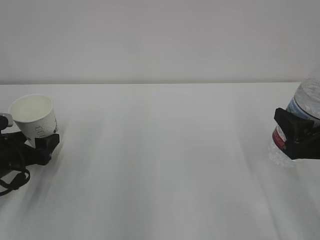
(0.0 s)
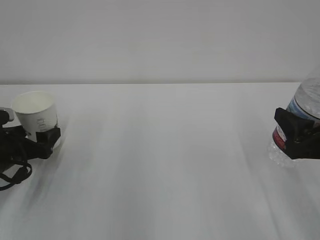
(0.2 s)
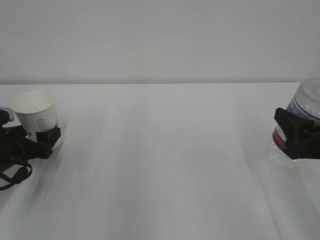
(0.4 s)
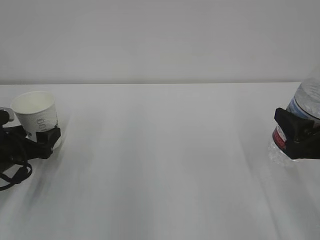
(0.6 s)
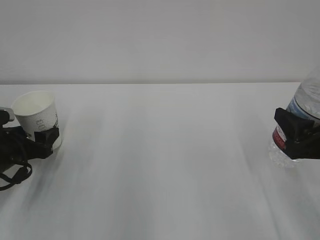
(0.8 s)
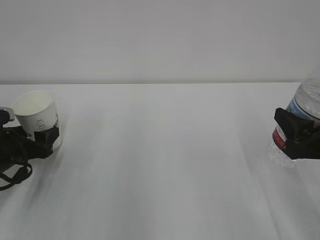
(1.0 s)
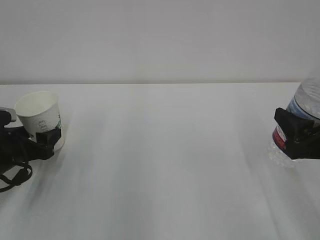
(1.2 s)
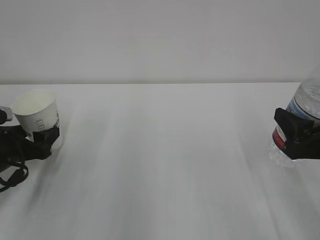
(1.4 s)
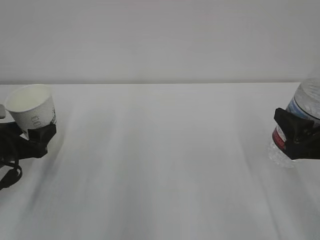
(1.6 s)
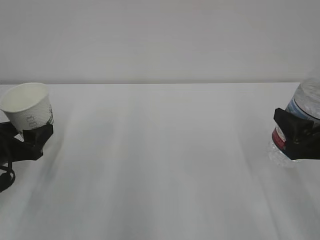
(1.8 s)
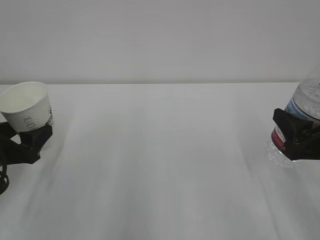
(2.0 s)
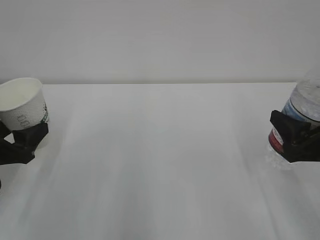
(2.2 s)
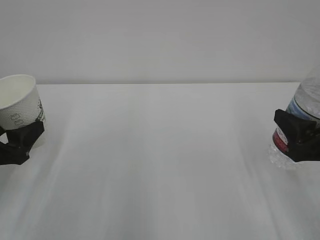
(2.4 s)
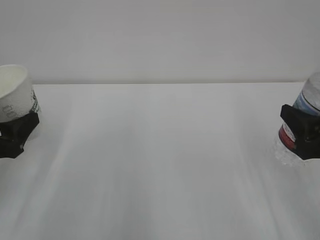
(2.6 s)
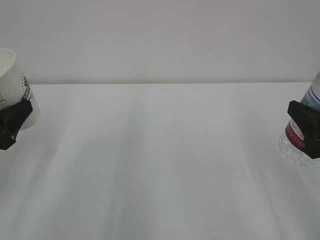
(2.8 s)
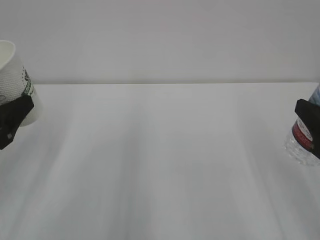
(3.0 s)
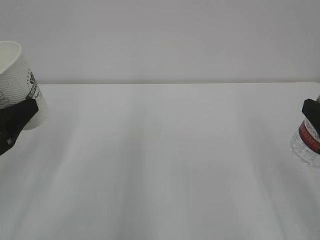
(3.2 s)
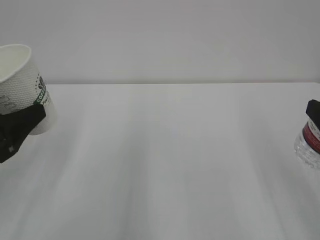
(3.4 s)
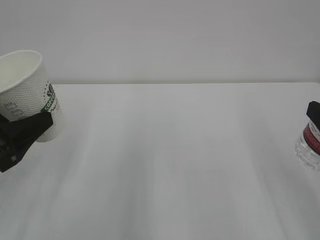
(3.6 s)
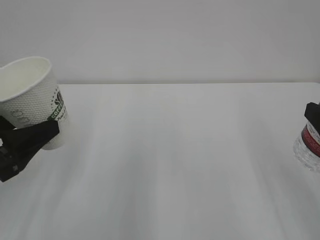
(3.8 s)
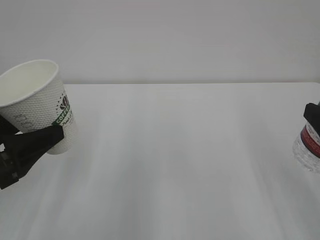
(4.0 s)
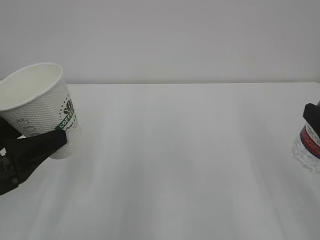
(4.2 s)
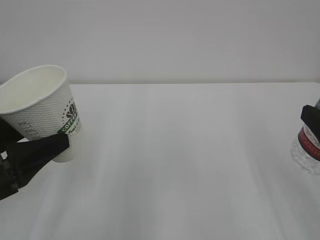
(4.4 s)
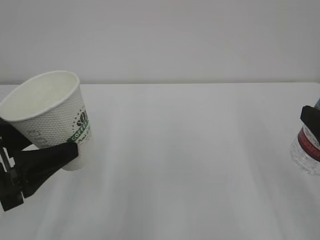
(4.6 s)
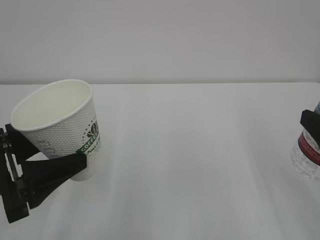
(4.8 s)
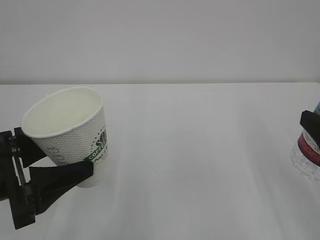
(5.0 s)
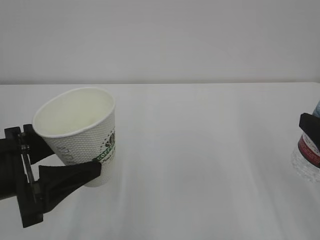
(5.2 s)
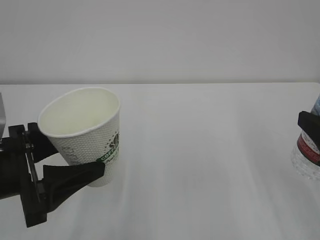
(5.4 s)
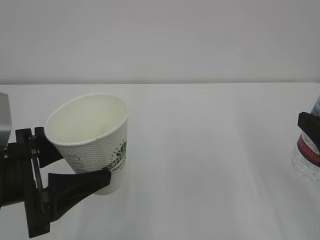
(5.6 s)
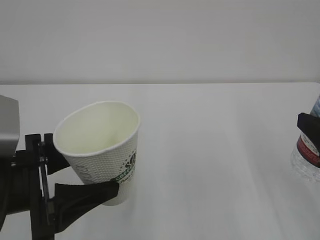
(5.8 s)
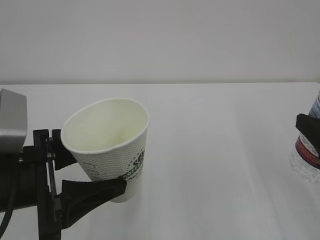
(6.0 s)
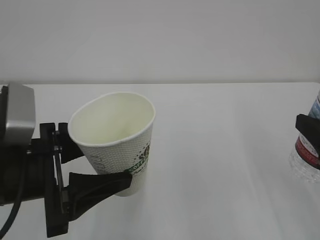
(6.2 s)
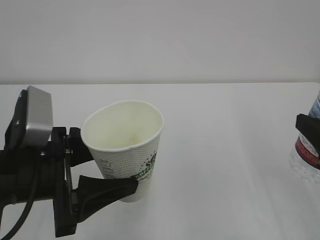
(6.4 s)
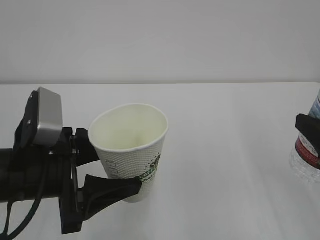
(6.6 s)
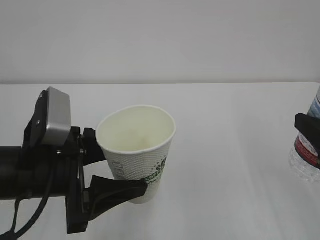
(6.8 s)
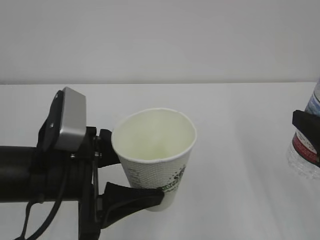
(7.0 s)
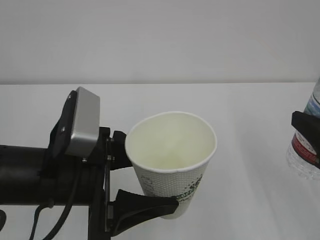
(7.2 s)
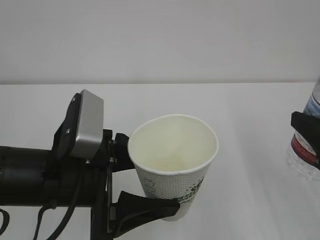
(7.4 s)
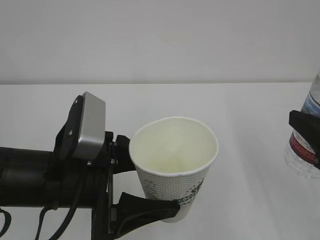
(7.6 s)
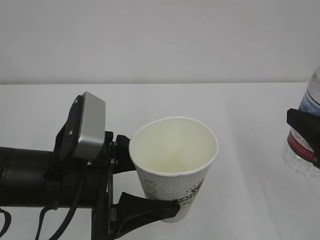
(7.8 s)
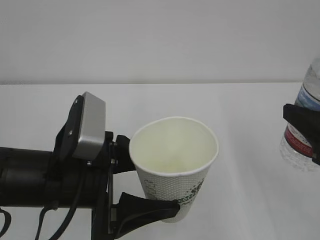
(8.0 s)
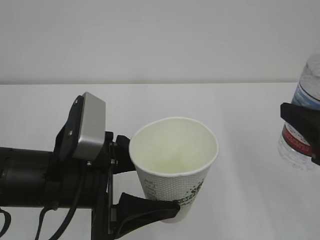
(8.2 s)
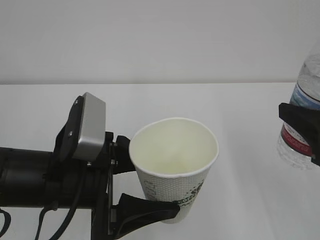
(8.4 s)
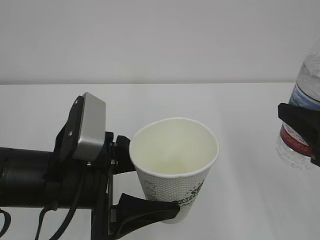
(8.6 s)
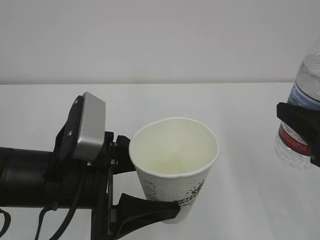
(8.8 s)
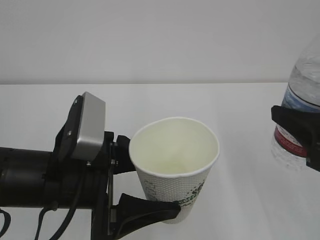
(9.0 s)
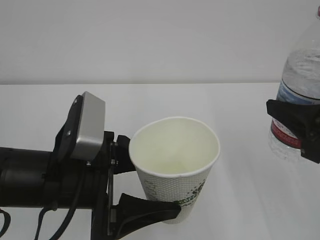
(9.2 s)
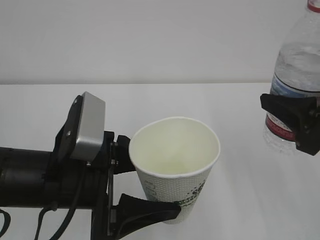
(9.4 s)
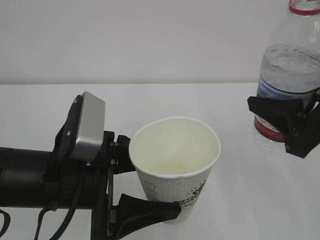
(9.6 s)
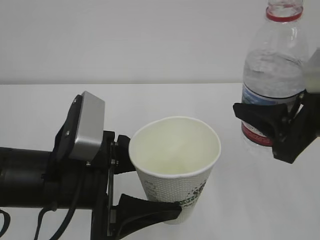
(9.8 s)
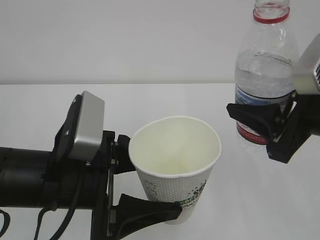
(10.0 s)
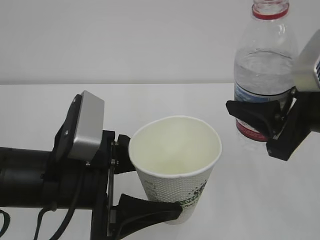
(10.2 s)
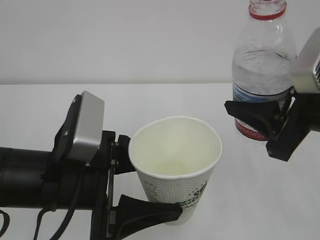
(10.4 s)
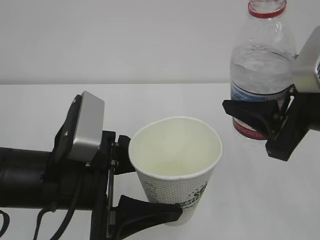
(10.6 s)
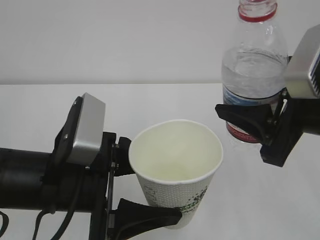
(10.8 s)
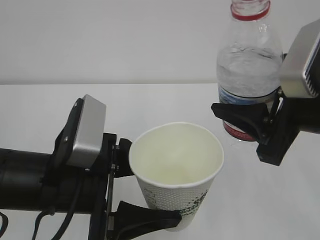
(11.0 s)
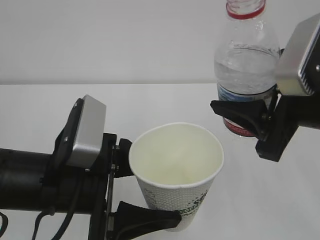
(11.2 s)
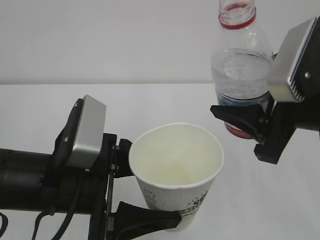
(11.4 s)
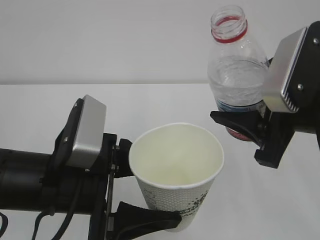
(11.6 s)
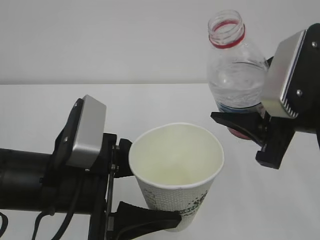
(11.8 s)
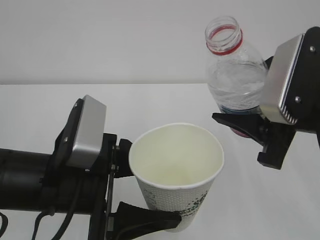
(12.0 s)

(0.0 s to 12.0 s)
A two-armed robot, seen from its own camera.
0.0 s - 1.6 s: The left gripper closes.
1.6 s - 3.0 s: The right gripper changes place by approximately 5 cm; the left gripper goes about 10 cm upward and backward.
4.4 s - 6.0 s: The left gripper heads to the right, covering about 5 cm.
6.0 s - 7.6 s: The left gripper is displaced to the right by some 5 cm.
7.6 s - 9.0 s: The grippers make only small movements.
9.0 s - 10.4 s: The right gripper ends up roughly 5 cm from where it was.
10.4 s - 12.0 s: The grippers make only small movements.

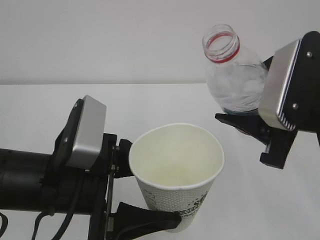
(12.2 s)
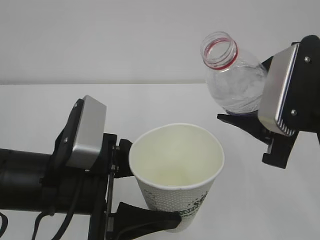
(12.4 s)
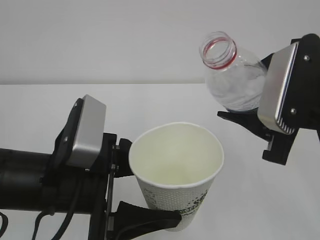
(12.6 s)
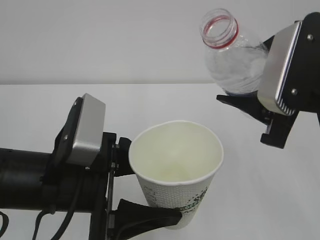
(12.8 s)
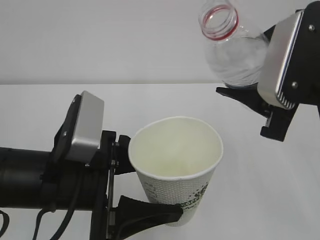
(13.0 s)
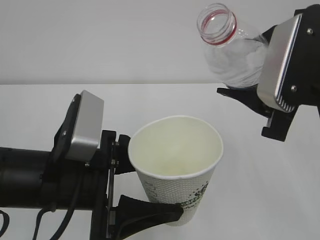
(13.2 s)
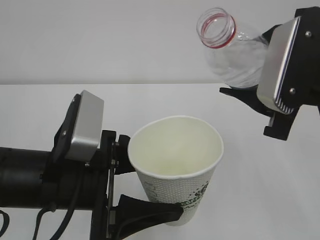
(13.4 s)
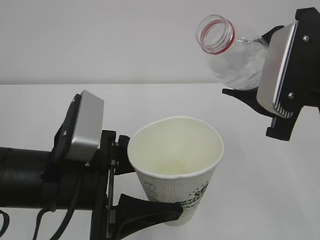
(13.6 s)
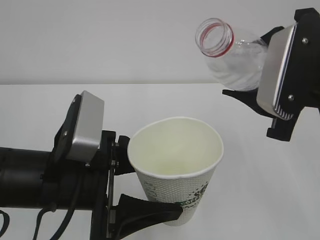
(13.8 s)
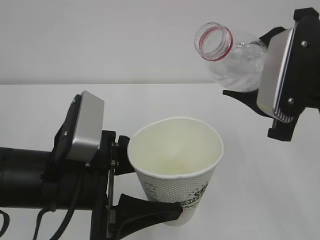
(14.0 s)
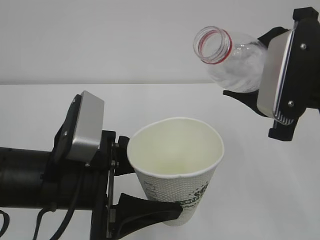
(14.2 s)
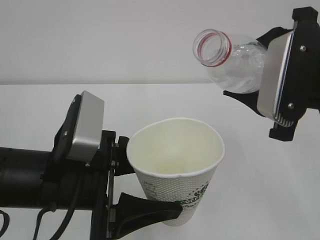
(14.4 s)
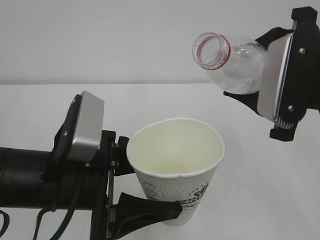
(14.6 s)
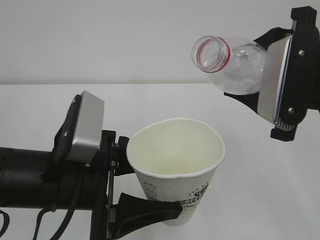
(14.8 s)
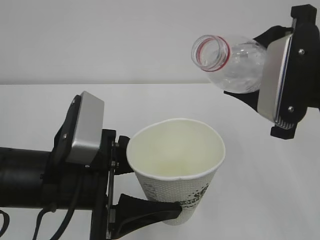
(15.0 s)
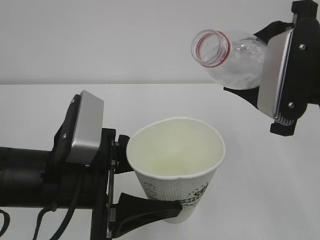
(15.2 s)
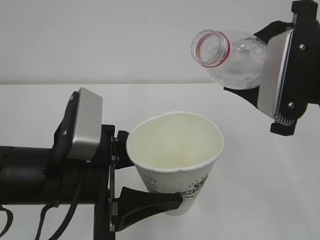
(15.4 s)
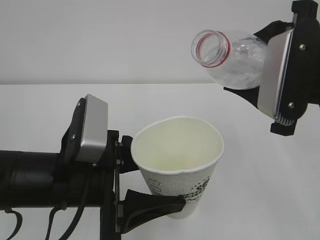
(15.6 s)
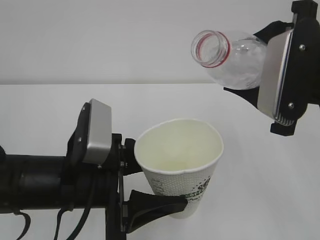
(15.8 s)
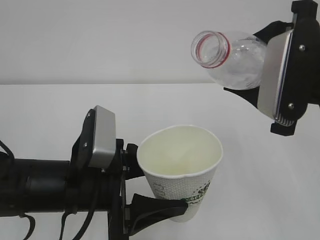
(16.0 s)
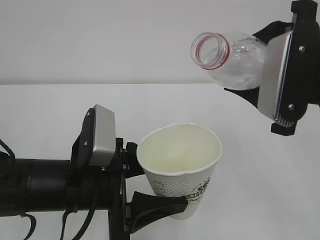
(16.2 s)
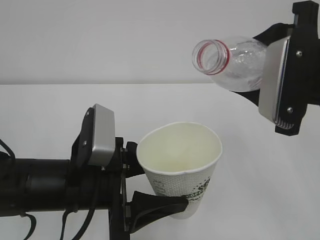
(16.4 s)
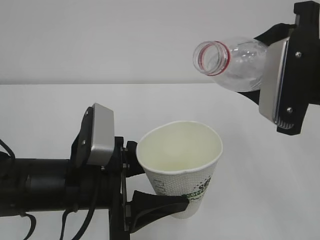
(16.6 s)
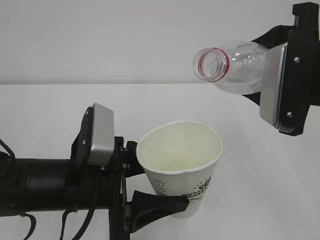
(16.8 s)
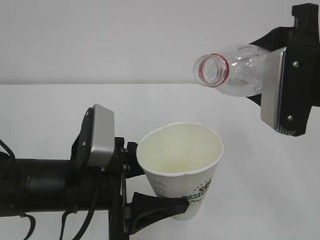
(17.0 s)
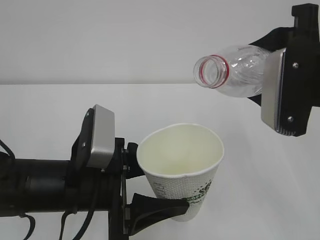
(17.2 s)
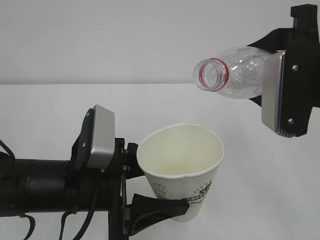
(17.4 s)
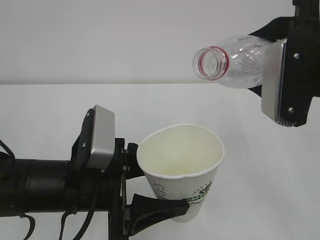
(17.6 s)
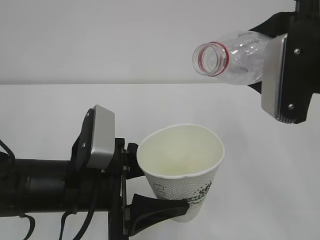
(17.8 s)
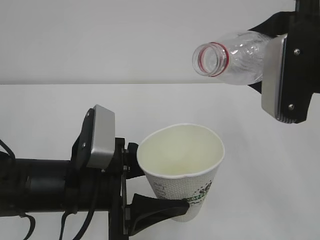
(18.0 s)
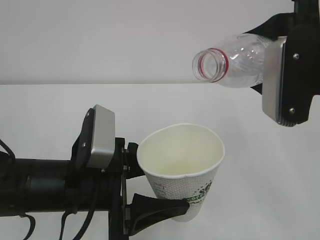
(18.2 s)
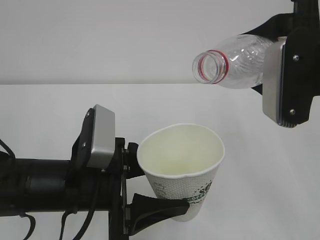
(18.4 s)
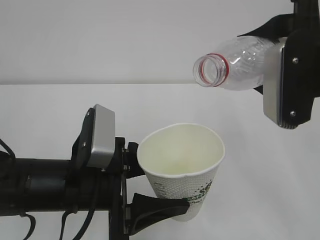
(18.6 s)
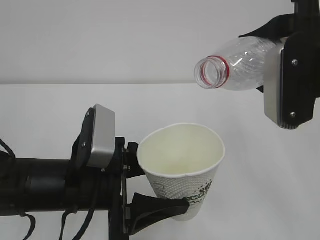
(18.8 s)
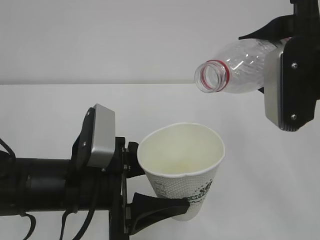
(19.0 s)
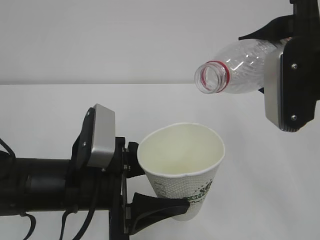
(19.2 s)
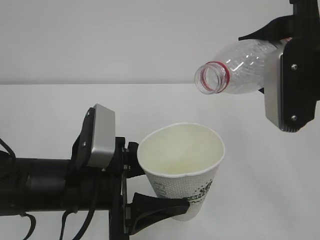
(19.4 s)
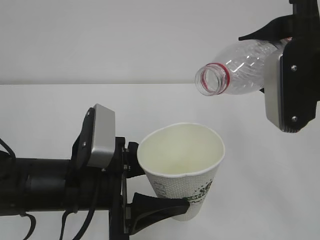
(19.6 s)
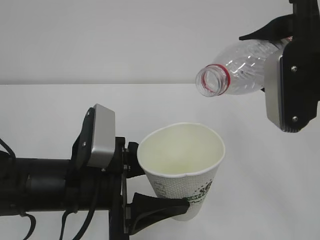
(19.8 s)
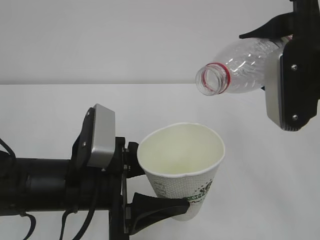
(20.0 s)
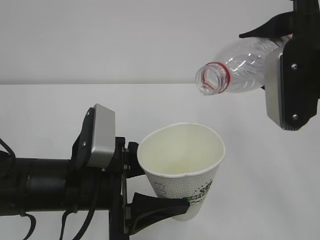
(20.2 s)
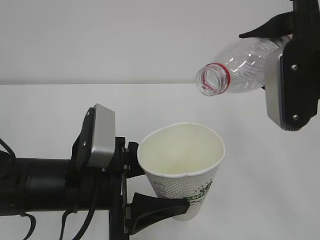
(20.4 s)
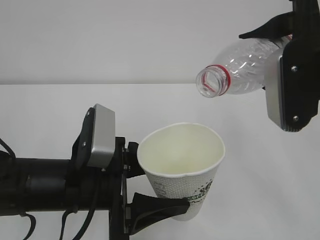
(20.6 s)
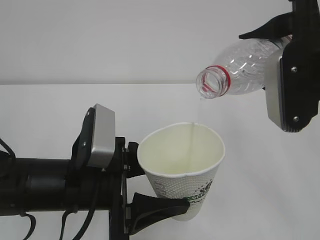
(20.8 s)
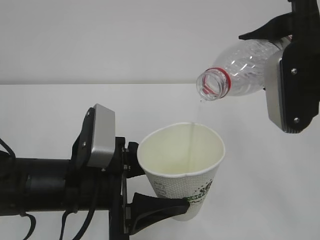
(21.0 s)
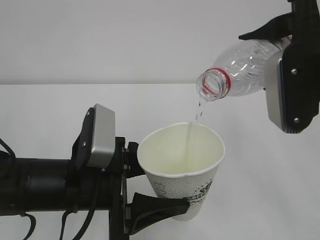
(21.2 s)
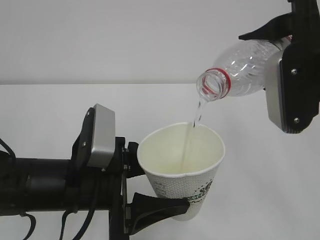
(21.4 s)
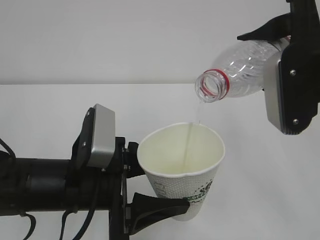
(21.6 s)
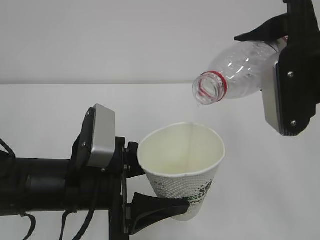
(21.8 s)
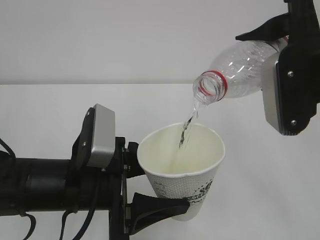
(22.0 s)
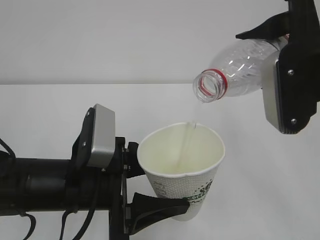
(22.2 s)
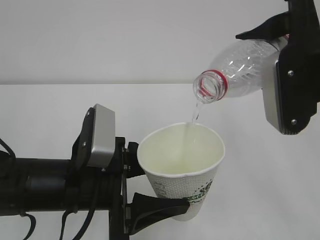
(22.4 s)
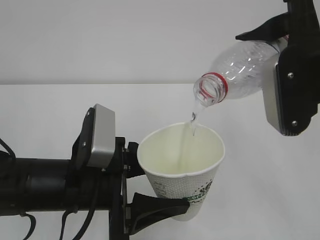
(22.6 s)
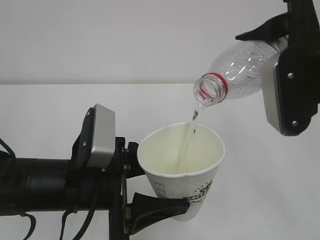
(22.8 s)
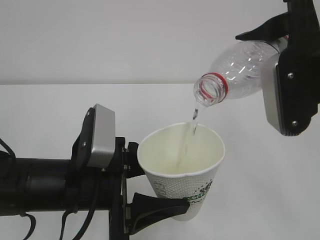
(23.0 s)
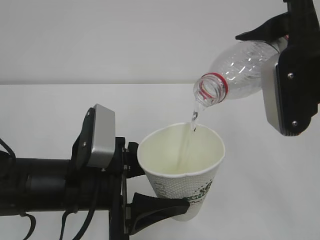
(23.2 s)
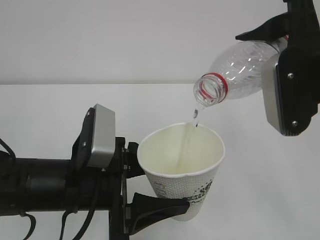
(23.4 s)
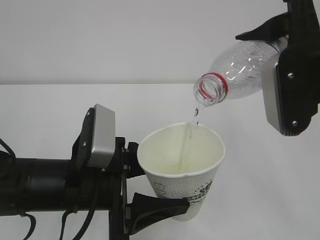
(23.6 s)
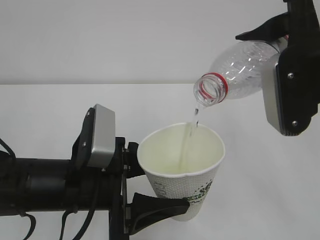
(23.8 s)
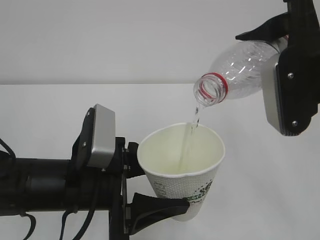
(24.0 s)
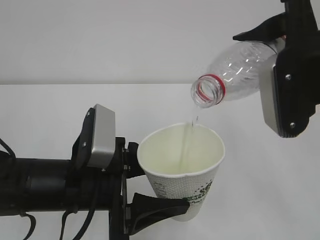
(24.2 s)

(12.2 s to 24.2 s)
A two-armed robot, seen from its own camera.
12.2 s - 13.8 s: The grippers stay close to where they were, moving slightly.
13.8 s - 16.6 s: There are only small adjustments of the grippers.
16.6 s - 19.8 s: There are only small adjustments of the grippers.
19.8 s - 21.2 s: Both grippers stay about where they are.
21.2 s - 24.2 s: Neither gripper changes place.
